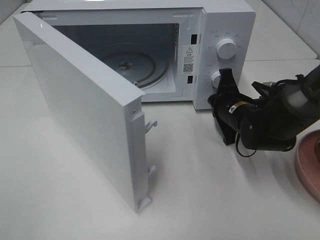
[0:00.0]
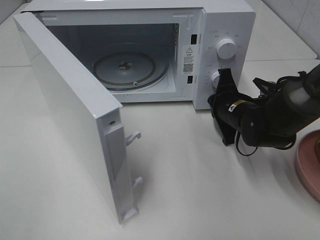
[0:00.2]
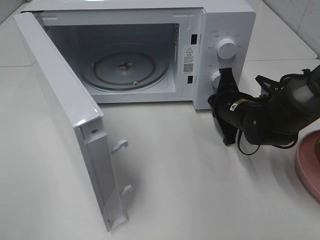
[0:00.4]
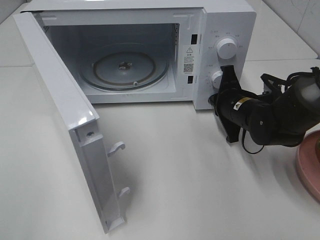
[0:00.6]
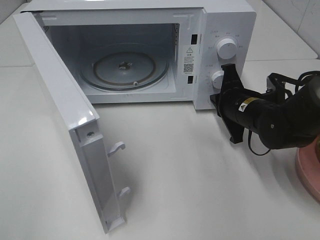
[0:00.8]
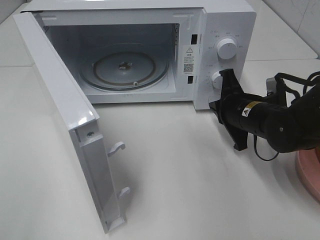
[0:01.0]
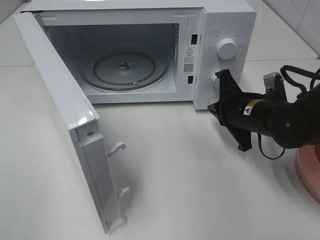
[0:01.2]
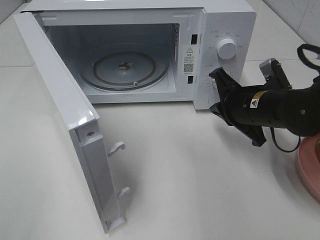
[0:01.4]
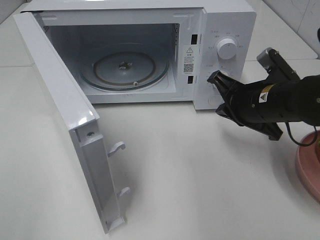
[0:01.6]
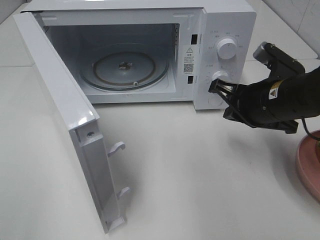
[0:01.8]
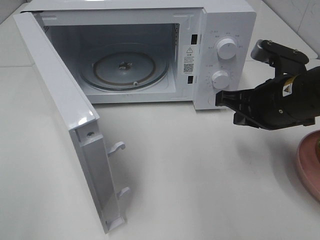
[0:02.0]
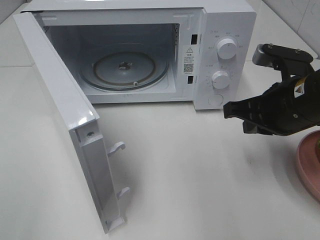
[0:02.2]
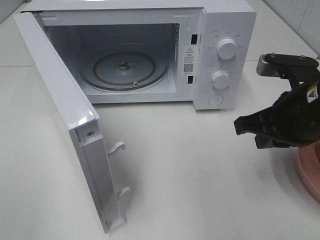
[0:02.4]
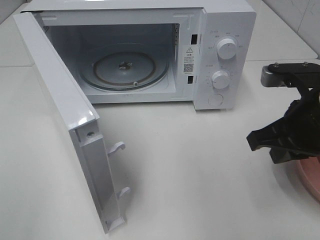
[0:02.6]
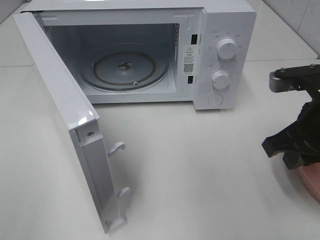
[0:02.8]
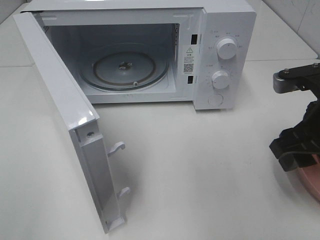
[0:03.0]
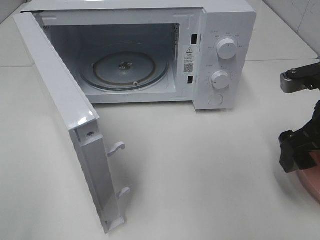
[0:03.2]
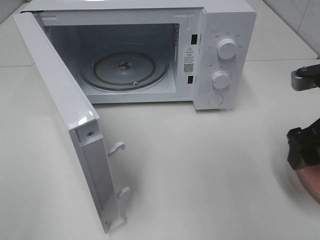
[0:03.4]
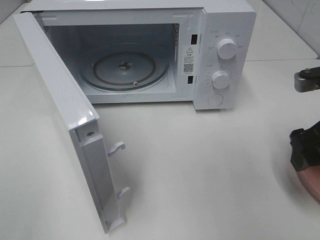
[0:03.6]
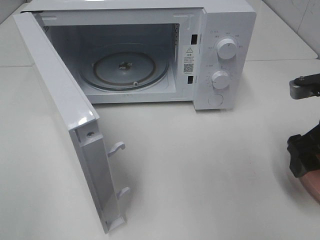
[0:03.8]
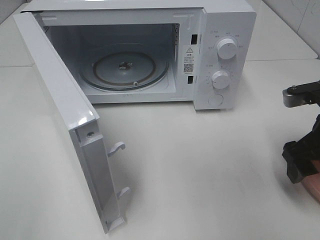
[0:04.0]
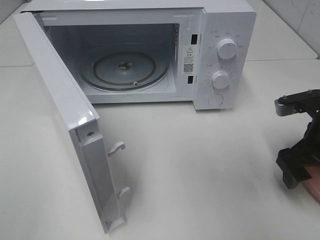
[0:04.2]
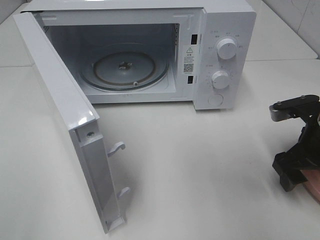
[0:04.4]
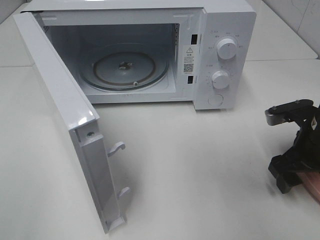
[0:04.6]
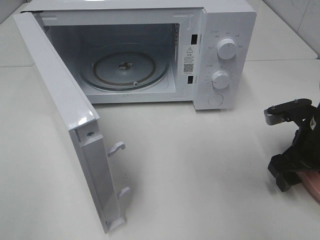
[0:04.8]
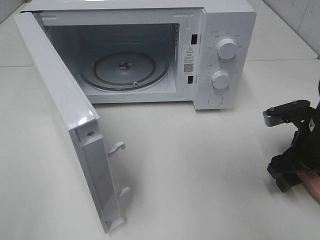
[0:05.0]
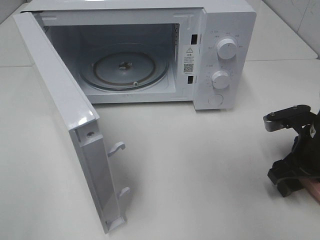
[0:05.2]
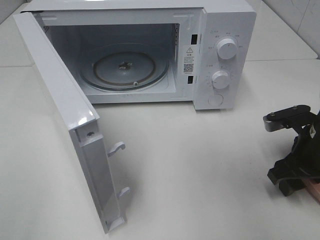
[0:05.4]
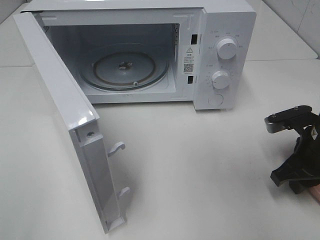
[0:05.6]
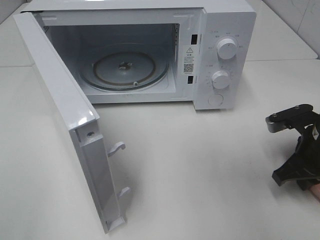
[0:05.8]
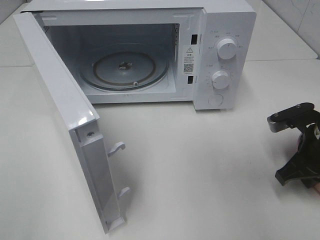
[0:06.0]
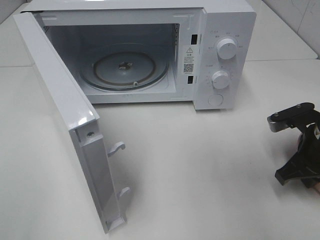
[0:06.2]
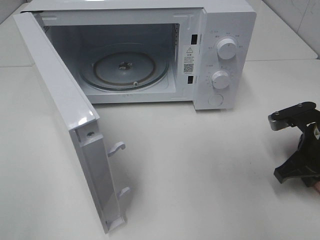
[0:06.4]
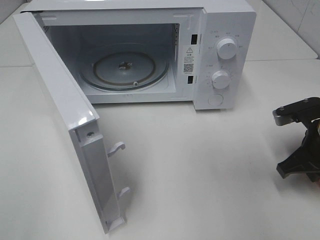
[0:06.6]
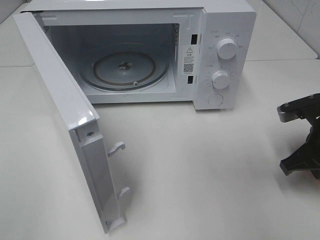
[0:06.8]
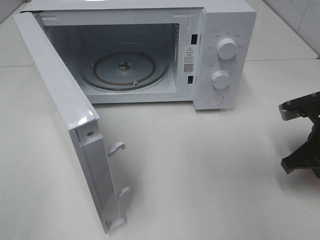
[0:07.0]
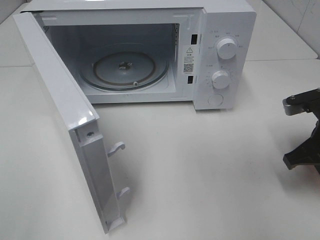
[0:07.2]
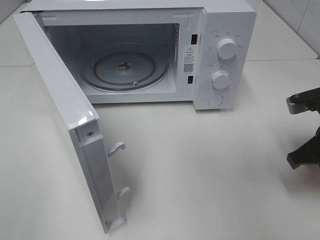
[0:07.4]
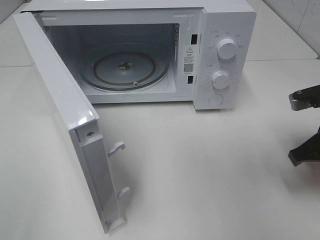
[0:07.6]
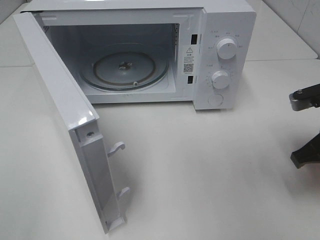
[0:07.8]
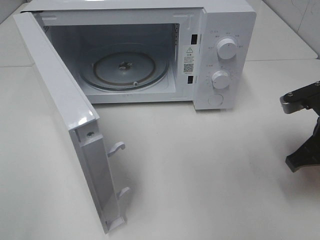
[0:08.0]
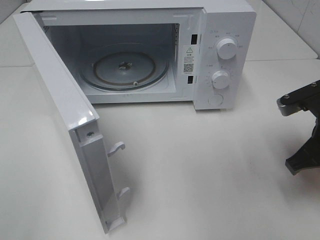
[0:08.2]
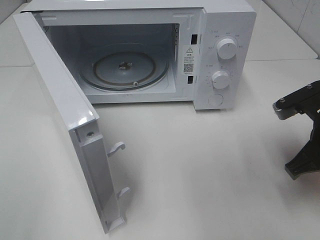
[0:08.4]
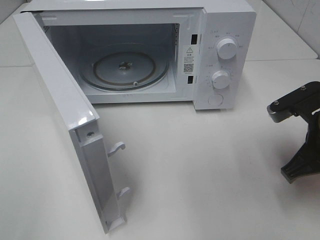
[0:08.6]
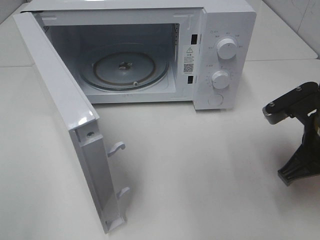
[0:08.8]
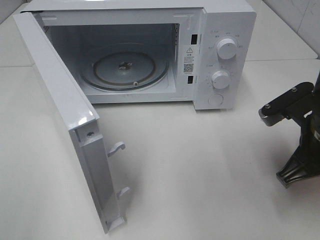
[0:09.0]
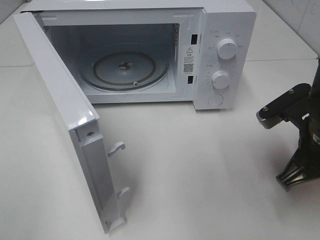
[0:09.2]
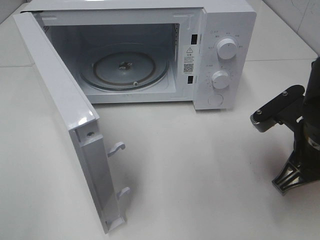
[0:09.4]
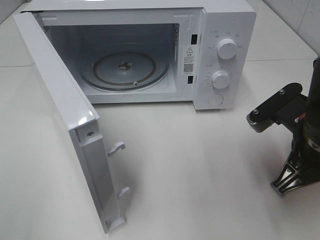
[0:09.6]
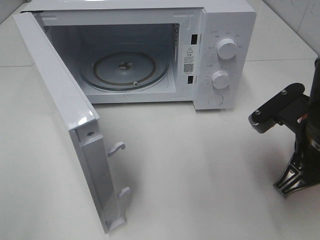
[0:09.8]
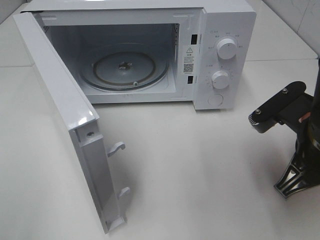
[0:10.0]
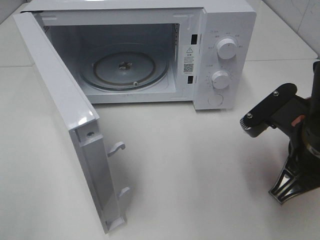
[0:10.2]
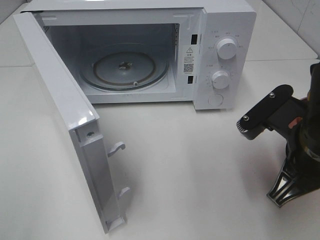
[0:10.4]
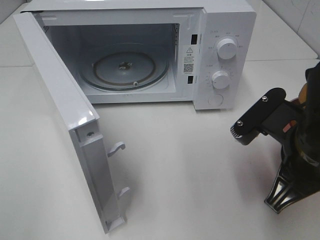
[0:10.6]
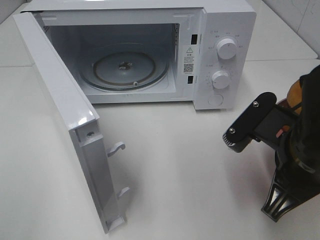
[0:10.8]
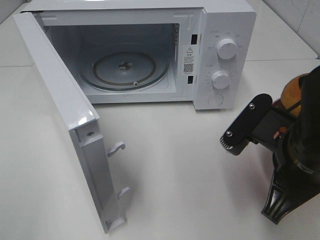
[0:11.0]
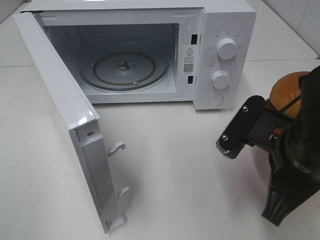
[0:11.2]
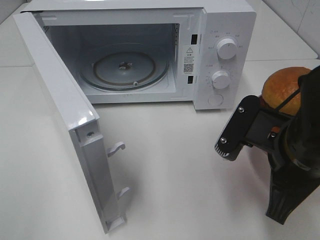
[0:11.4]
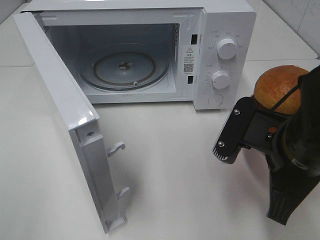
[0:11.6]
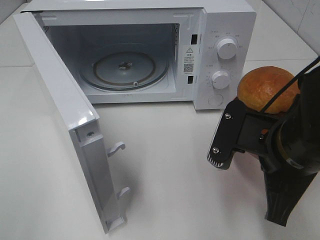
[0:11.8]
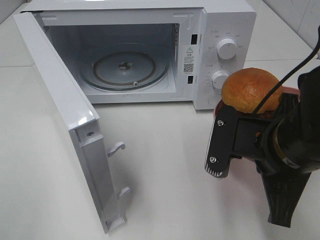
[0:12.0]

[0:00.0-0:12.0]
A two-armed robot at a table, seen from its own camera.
Task of the whole recording: Heat the burger.
Step, 0:01.0 to 0:06.2: Right hand: grab the plate with the hamburger.
0:00.0 to 0:01.6: The right gripper goes some 10 cm upward and backward.
0:01.6 to 0:03.0: The right gripper moves backward, to the right and upward, roughly 10 cm, and opens.
0:03.0 to 0:04.4: The right gripper is displaced downward by roughly 5 cm.
0:04.4 to 0:06.0: The right gripper closes.
0:06.0 to 0:07.6: The grippers make only small movements.
0:07.6 to 0:09.0: The right gripper moves to the left, some 5 cm.
0:09.0 to 0:10.4: The right gripper shifts by roughly 5 cm.

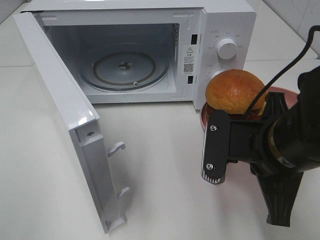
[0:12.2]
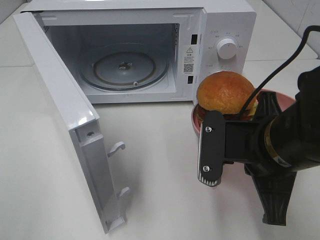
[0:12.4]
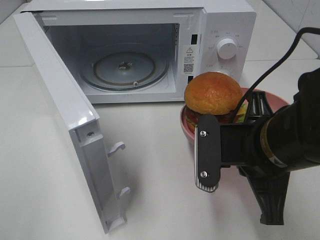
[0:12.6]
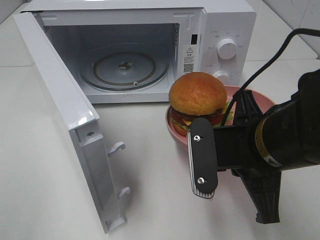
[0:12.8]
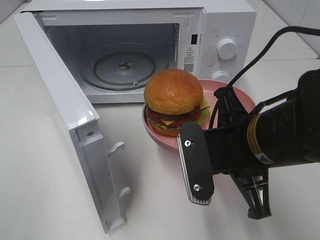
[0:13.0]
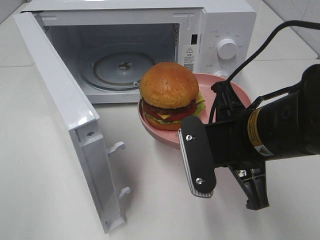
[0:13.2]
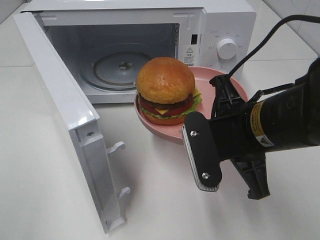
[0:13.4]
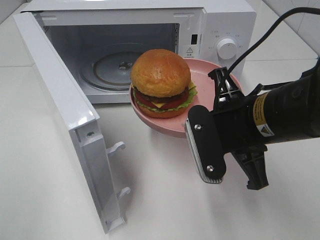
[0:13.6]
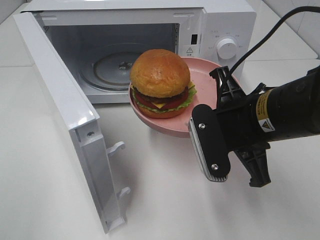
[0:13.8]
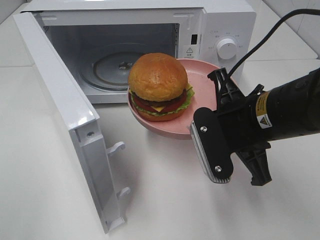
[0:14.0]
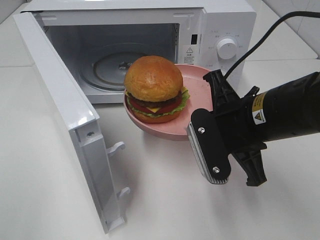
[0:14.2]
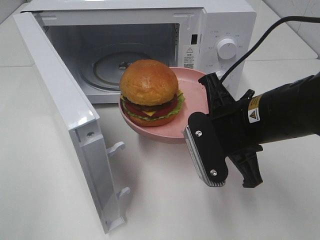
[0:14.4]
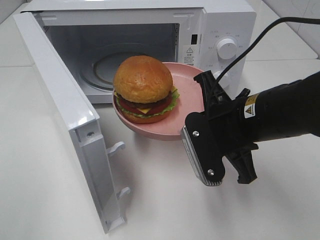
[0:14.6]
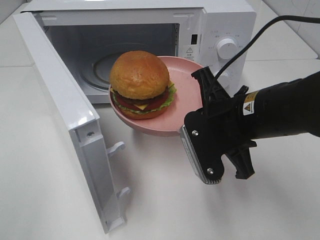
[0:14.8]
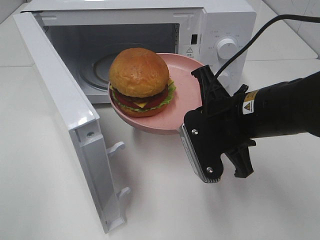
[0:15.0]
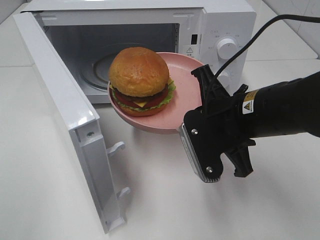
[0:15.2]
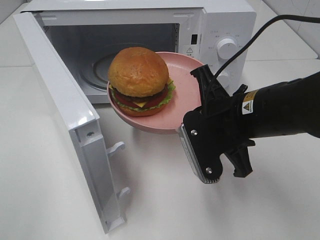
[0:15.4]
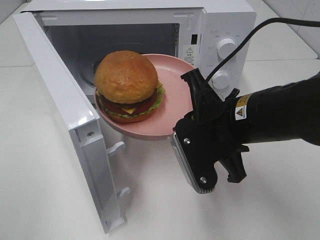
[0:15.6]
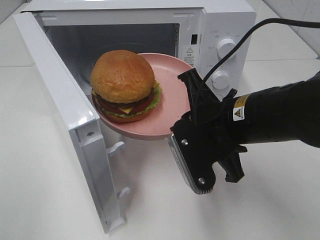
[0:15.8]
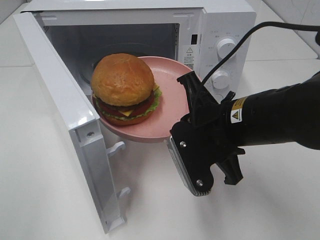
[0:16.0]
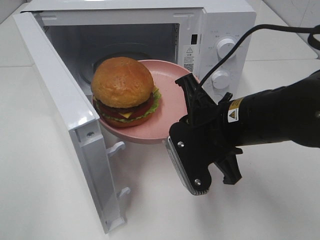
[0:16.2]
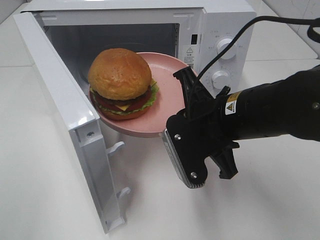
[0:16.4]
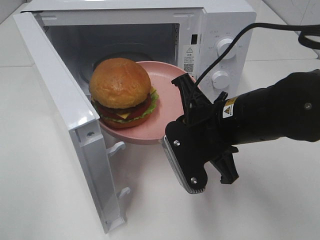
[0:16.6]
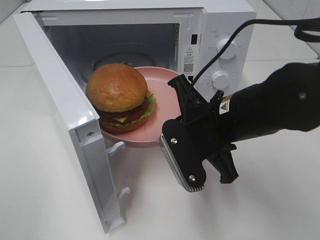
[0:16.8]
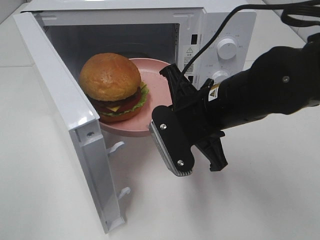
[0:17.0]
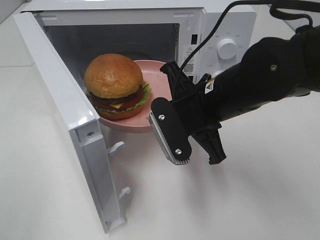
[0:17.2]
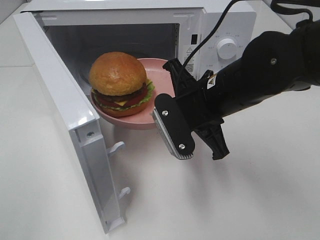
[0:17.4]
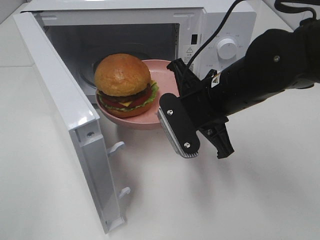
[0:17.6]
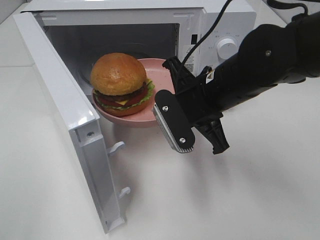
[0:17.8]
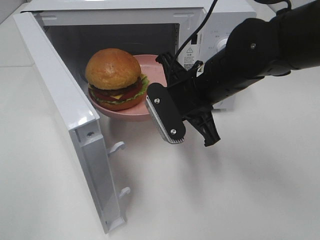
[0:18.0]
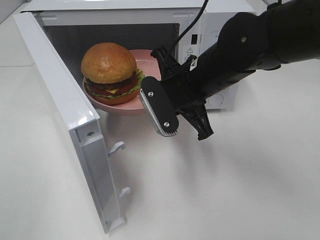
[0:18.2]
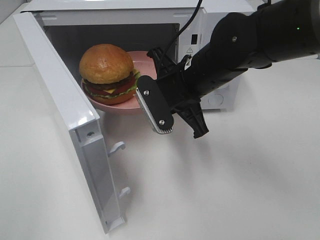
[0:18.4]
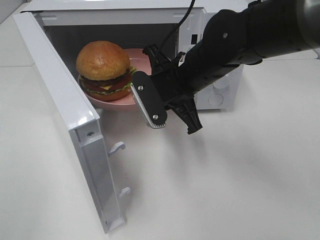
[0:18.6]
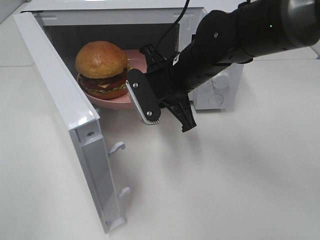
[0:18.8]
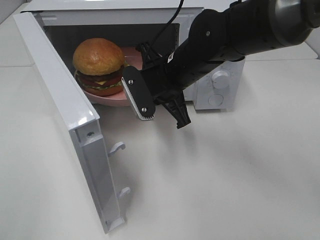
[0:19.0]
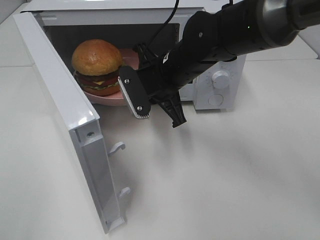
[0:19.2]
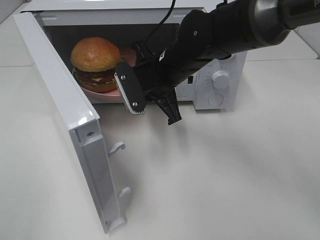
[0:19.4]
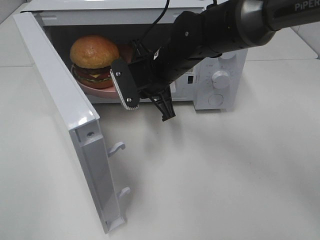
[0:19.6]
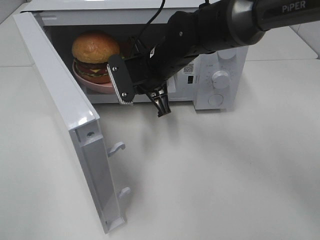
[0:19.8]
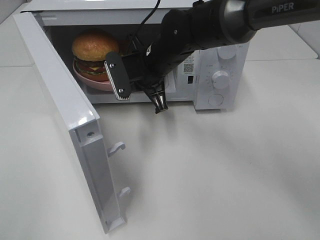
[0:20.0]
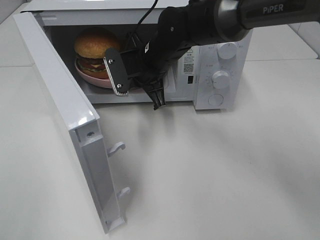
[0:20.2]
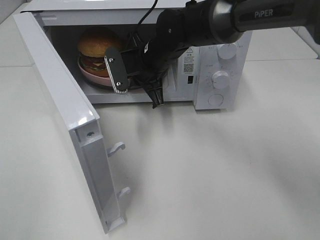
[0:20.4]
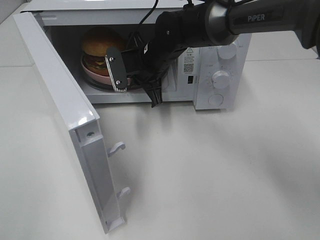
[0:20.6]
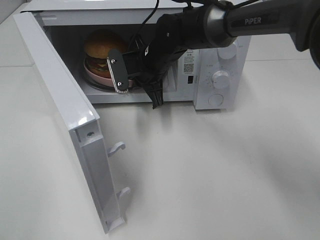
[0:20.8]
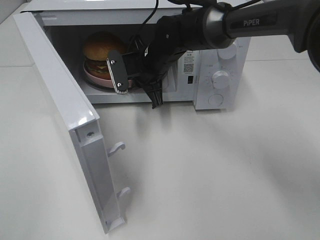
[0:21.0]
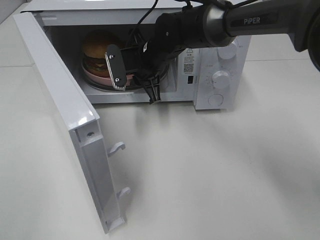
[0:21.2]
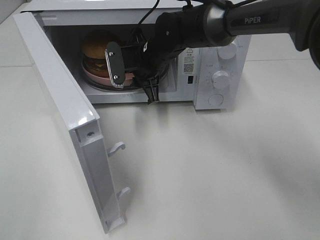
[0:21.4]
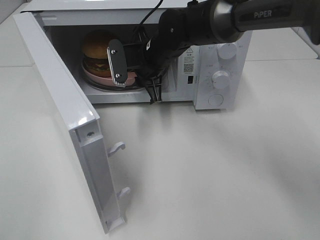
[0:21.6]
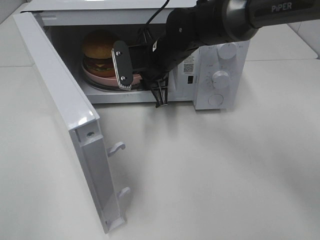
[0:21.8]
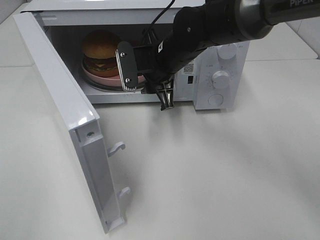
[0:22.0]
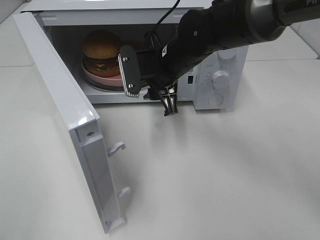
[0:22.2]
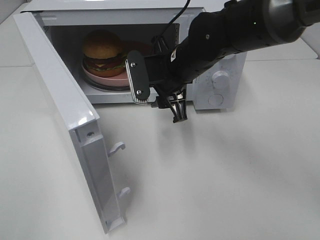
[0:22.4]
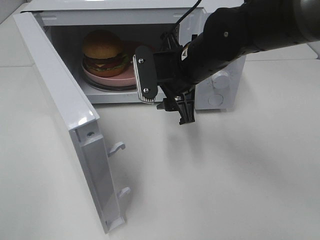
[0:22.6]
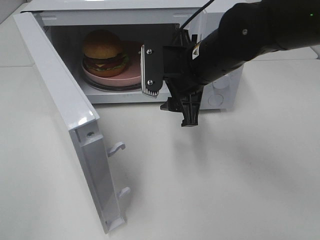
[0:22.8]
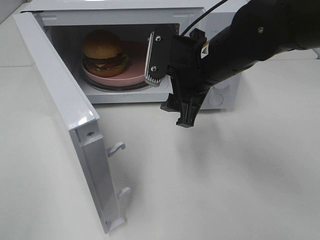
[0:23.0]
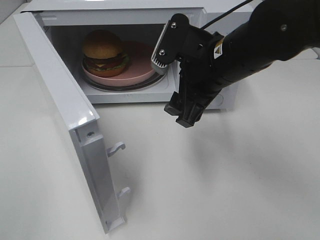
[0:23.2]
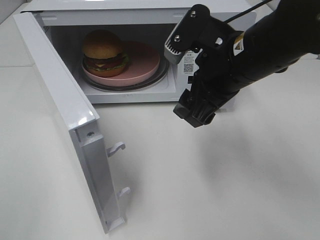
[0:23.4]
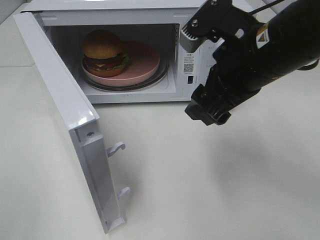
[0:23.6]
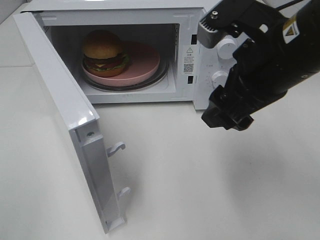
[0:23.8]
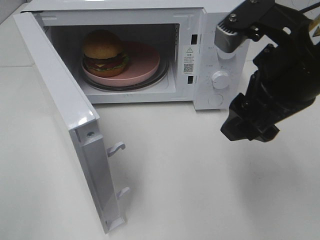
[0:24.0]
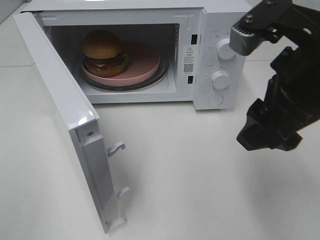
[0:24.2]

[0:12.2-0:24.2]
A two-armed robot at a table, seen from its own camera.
Task of the whole recording: Heat the burger.
Step, 0:12.2 to 0:21.2: Right hand: place the plate in the microwave.
0:13.8 to 0:16.6: The grippers move only a little.
0:16.6 to 0:18.2: The right gripper goes some 10 cm forward.
0:18.2 to 0:19.8: The right gripper travels forward and to the left by roughly 10 cm.
0:19.8 to 0:21.2: The right gripper heads forward, covering about 5 cm.
0:21.2 to 0:22.6: The right gripper moves backward and to the right, some 10 cm, and opens its fingers.
0:22.6 to 0:24.2: The right gripper is displaced backward, to the right and upward by roughly 20 cm.
